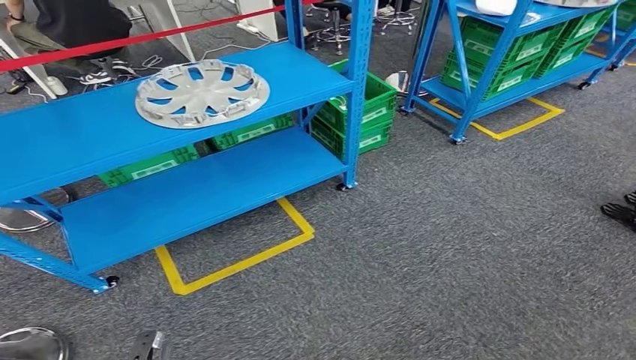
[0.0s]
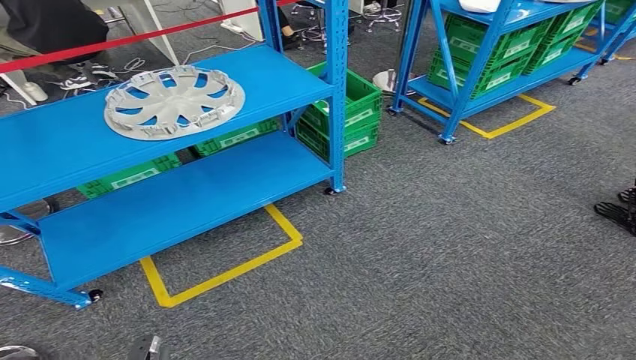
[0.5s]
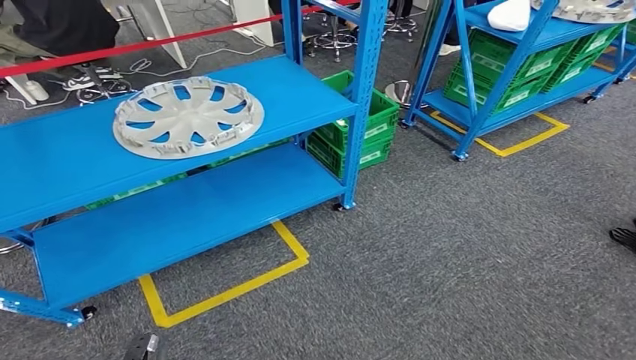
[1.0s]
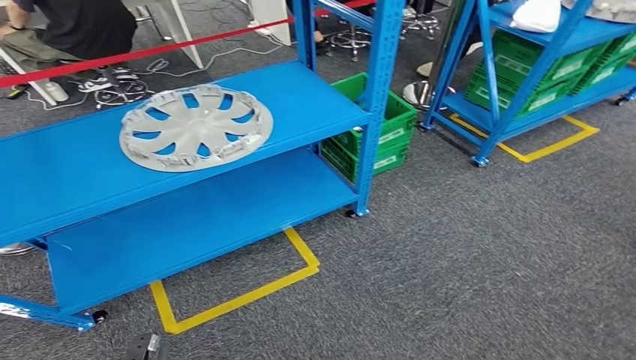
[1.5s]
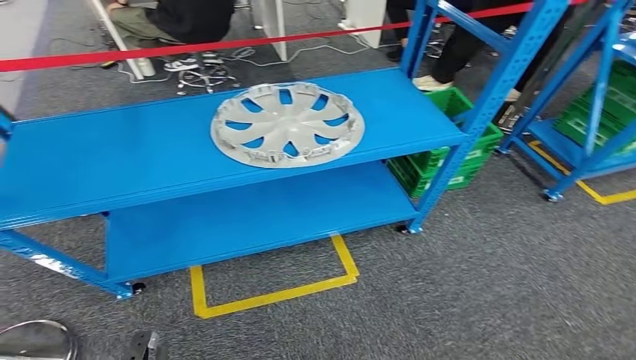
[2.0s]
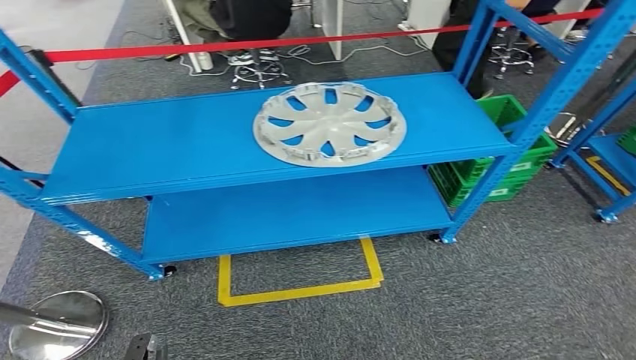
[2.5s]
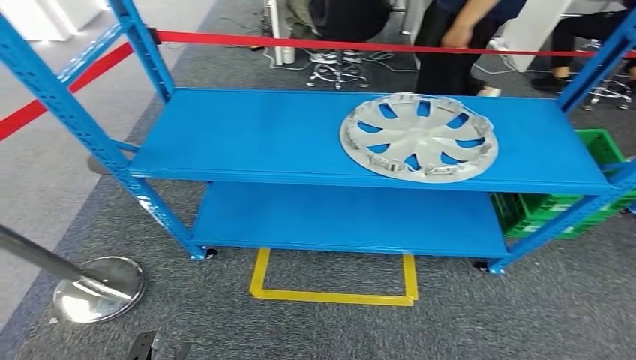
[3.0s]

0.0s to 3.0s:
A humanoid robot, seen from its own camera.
Step, 0.0s to 2.5s: Move to the initial position of the workbench.
